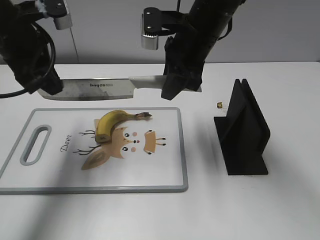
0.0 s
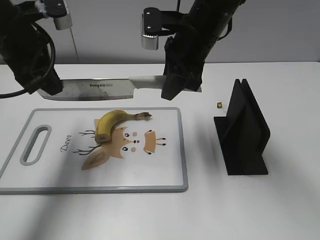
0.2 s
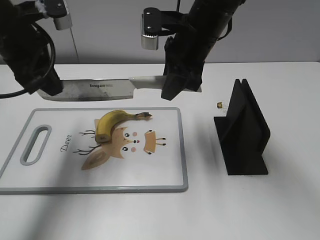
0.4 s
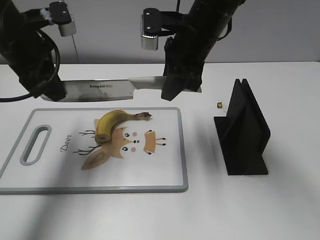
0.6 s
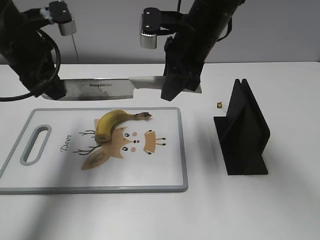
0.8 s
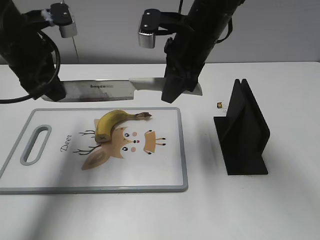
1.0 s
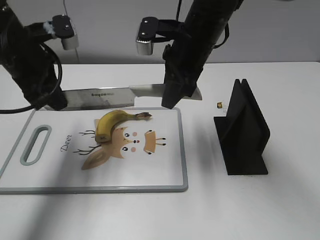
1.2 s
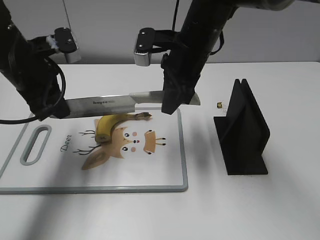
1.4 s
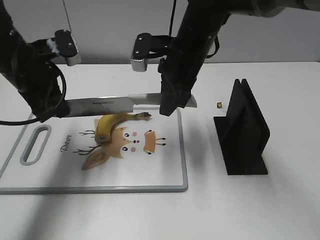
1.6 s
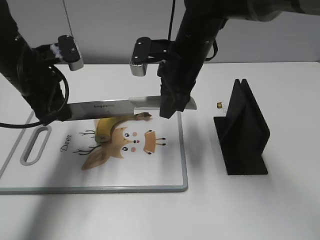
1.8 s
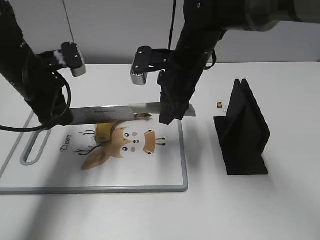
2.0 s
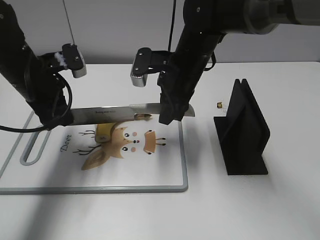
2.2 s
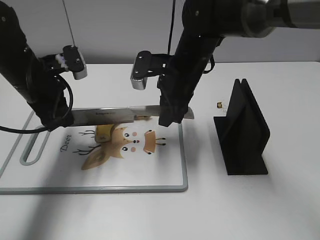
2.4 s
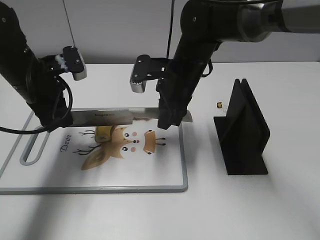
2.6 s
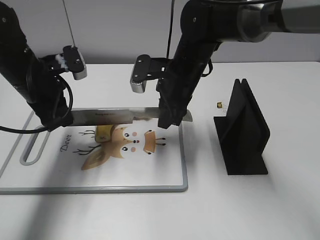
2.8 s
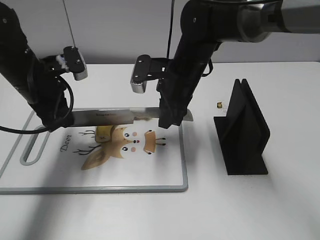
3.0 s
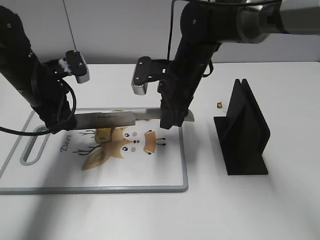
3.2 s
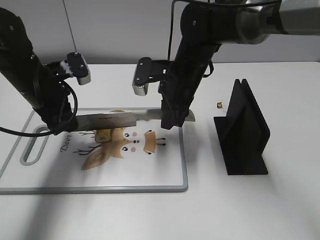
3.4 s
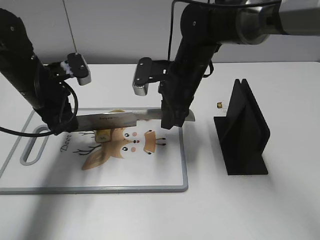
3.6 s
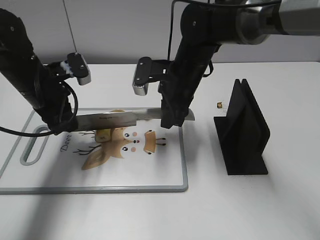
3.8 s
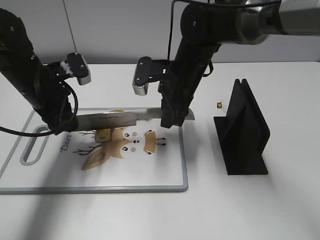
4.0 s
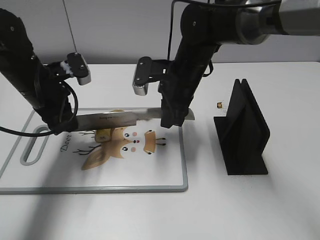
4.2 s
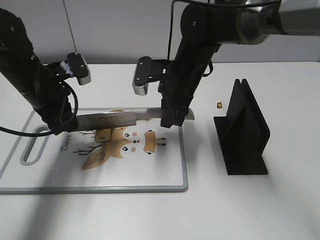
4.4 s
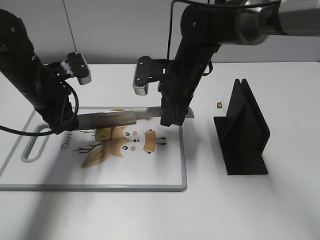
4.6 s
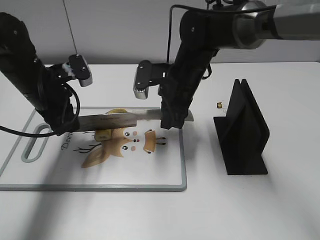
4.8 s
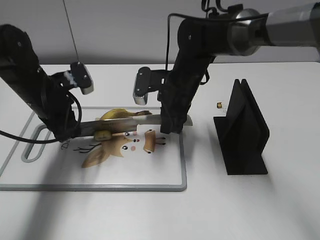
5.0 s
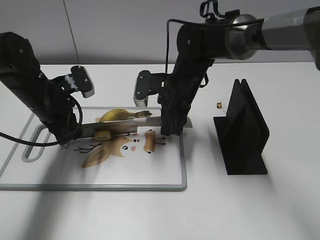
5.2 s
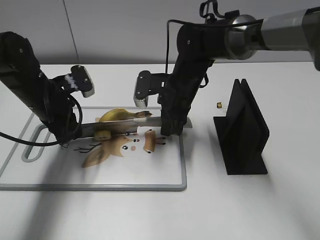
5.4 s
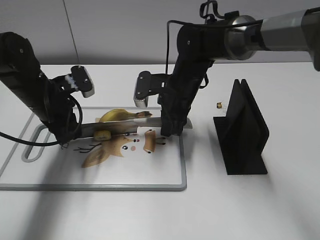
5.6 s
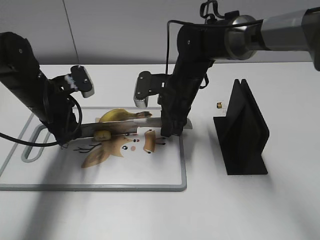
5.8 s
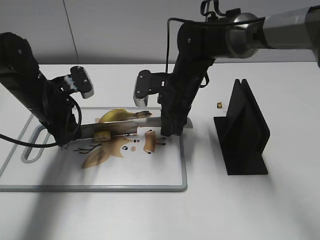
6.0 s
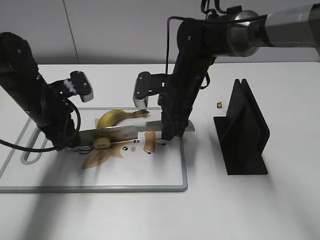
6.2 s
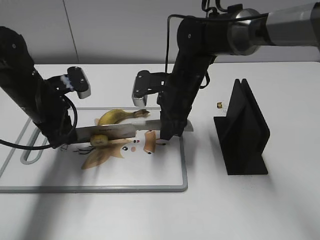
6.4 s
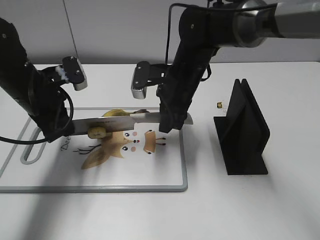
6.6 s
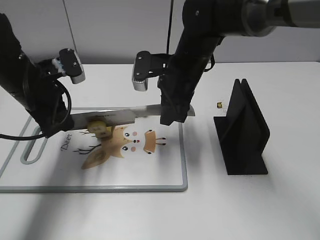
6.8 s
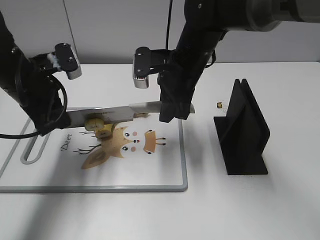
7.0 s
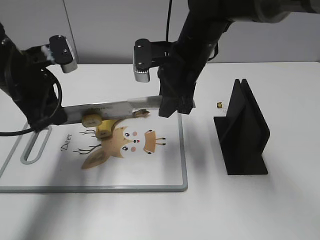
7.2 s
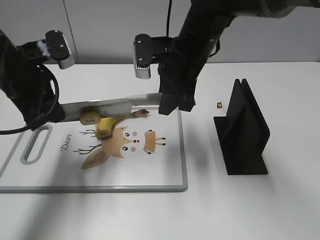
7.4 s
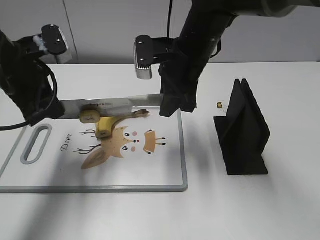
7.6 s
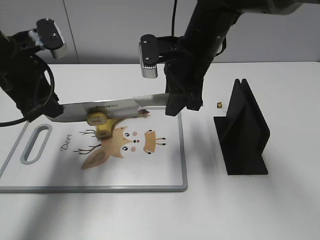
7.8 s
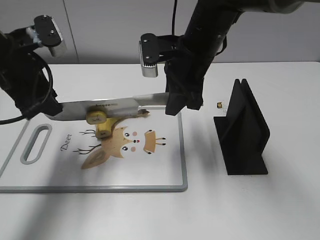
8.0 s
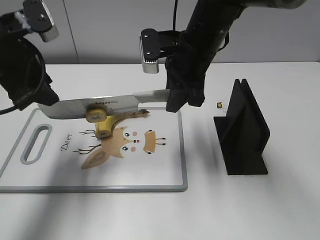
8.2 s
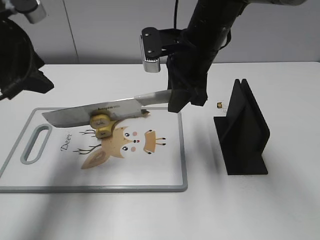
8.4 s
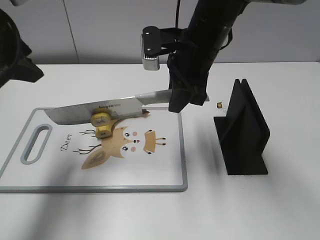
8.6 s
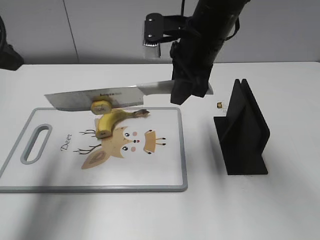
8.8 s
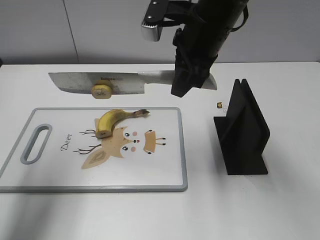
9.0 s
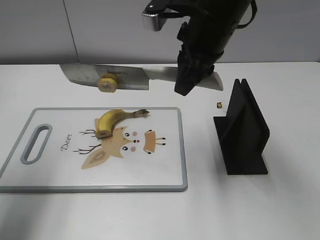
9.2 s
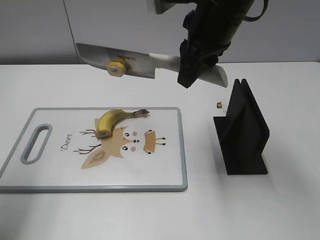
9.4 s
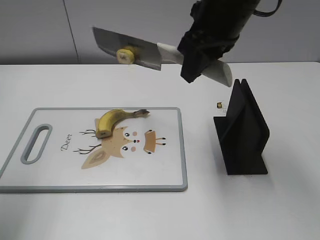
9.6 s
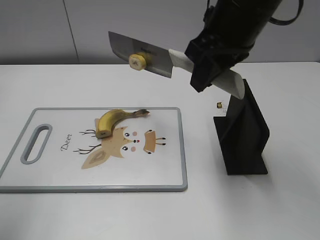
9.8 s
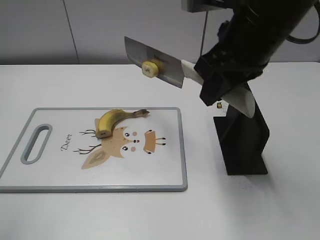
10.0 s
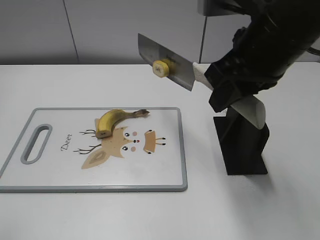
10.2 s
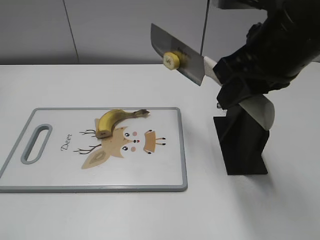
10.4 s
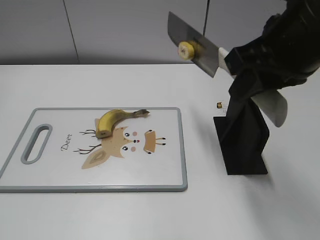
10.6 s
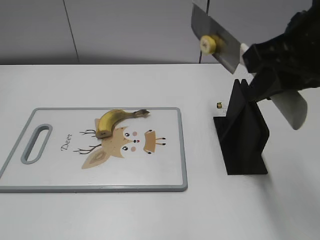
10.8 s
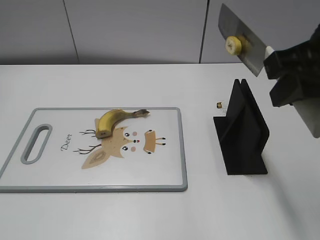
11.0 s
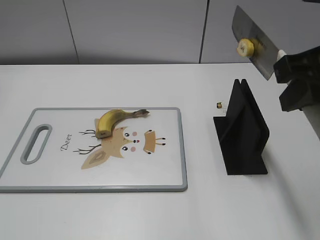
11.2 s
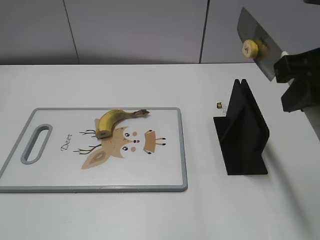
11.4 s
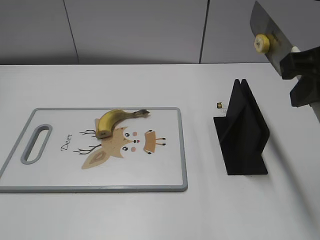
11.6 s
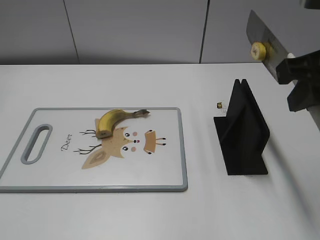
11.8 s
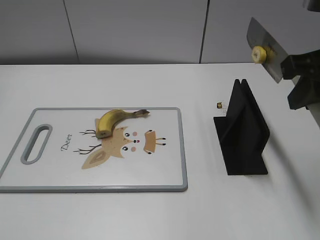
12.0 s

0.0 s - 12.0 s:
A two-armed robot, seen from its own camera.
Task of the whole recording: cut banana.
Step, 0.0 s - 3.4 s: Lift the knife with your right hand.
Step, 3.6 s - 9.6 s: Cut the banana with your right hand.
0.0 s - 1.6 s: The left gripper moves downward, approximately 5 cm.
1.6 s - 4.4 s: The grippers stay close to where they were, moving slightly.
4.4 s - 6.0 s: There are only small adjustments of the grippers.
6.0 s - 7.6 s: The two grippers go some 10 cm upward.
7.6 s - 9.0 s: The right gripper travels upward by some 5 cm; the left gripper moves upward, backward and to the left, about 10 cm, and opens its fingers.
9.0 s - 10.4 s: The left gripper goes some 20 cm backward. Meanwhile the right gripper is displaced backward and to the right by about 10 cm.
10.4 s - 12.0 s: The left gripper travels downward and backward by about 10 cm. The right gripper travels to the right by approximately 5 cm.

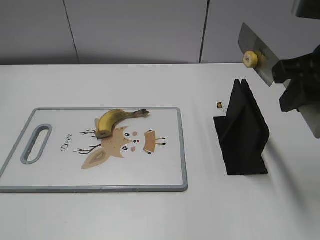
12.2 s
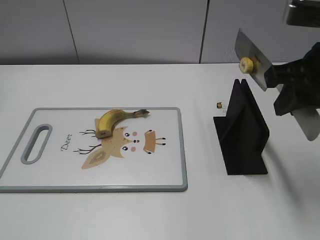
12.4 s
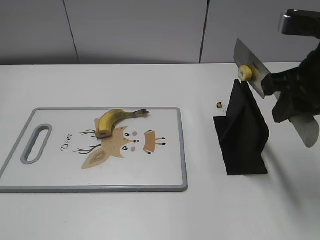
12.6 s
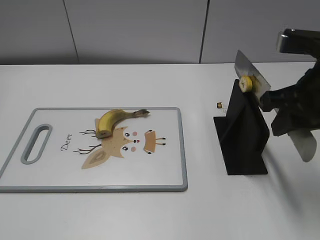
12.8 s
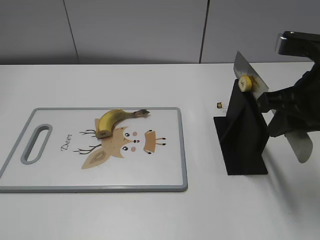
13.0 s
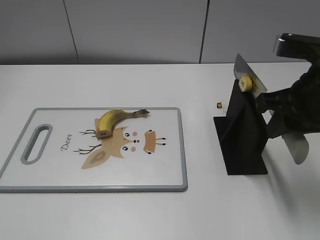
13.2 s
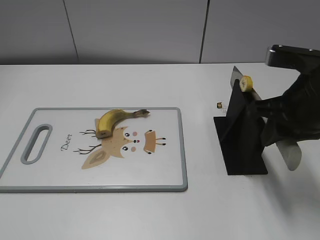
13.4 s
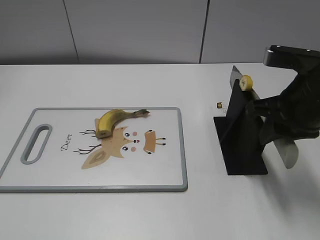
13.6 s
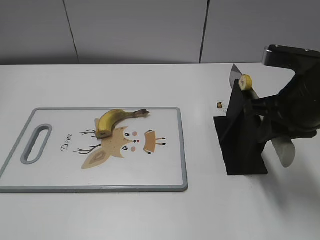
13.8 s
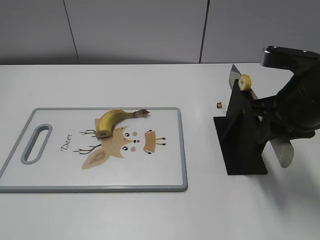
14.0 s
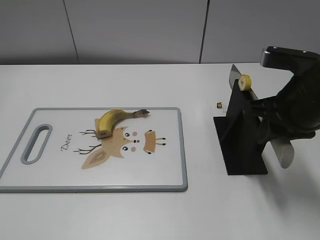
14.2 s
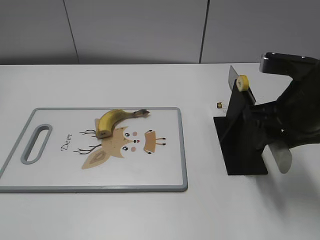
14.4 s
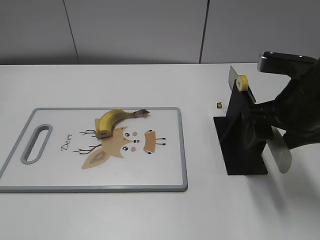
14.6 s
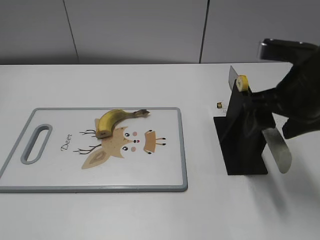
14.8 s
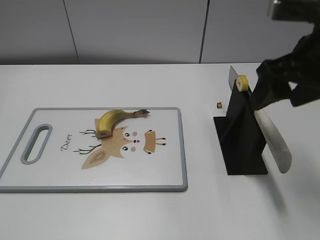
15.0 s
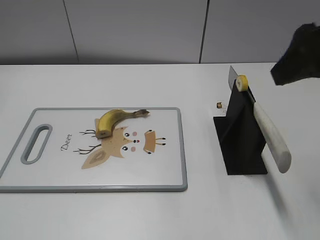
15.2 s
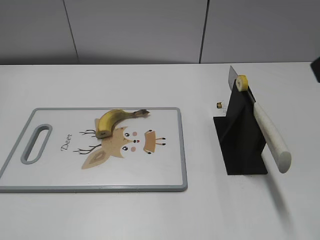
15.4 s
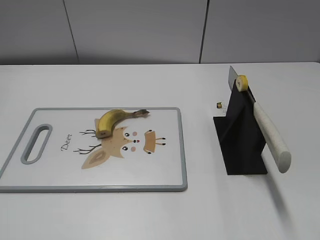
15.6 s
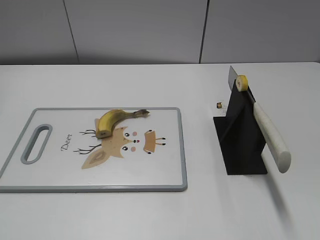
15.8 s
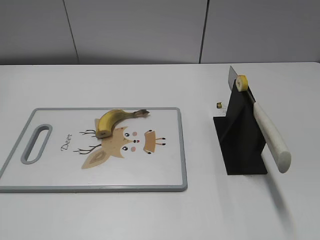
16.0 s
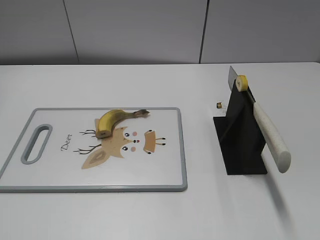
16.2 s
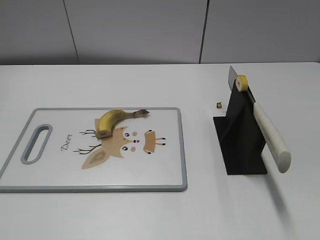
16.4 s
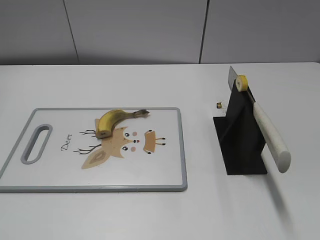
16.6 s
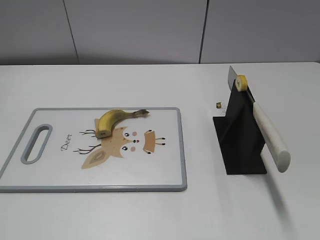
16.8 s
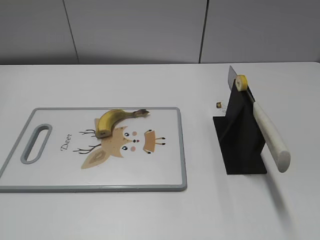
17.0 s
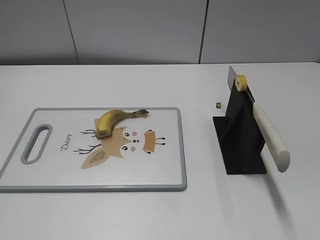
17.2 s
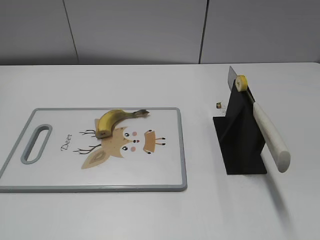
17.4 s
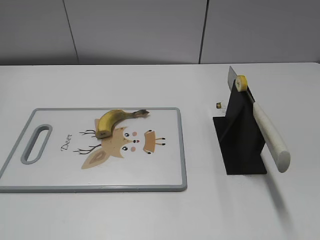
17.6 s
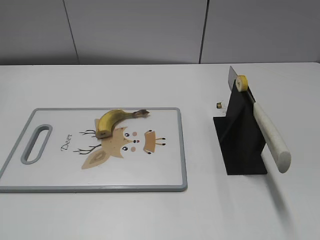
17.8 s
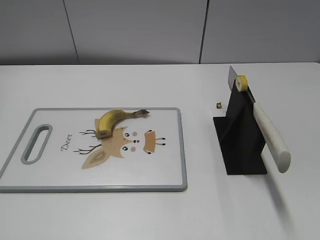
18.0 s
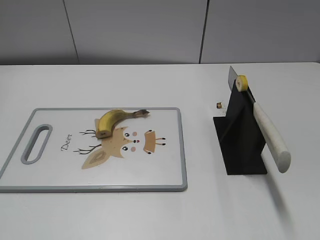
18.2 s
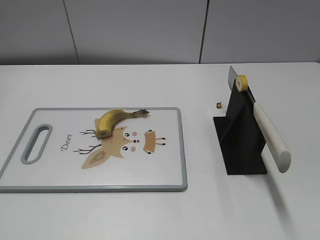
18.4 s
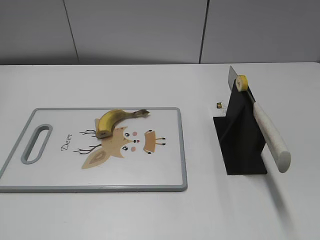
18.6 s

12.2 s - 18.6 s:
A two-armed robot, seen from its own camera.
Task of the whole recording: cut banana.
Step, 13.2 s - 18.6 s: Place the knife on the storage rack with your right hand.
12.2 s - 13.8 s: The right gripper is displaced downward by roughly 5 cm.
13.8 s - 15.4 s: The right gripper moves upward and backward, approximately 15 cm, and opens.
